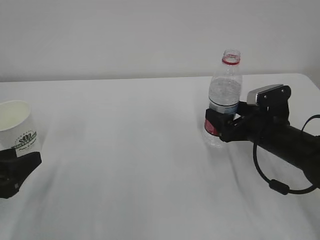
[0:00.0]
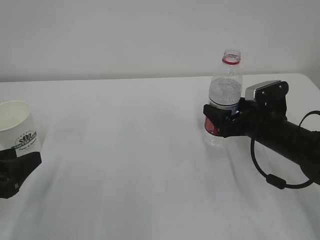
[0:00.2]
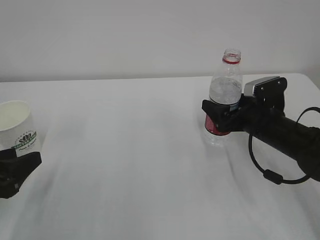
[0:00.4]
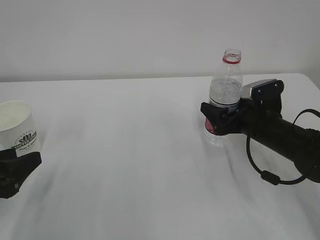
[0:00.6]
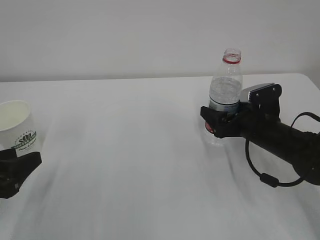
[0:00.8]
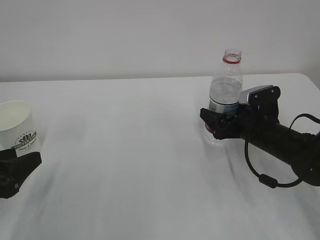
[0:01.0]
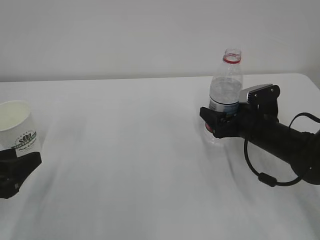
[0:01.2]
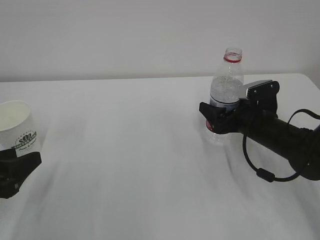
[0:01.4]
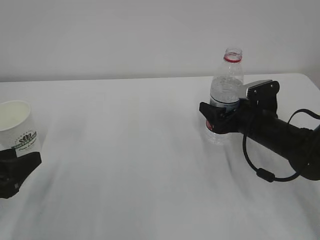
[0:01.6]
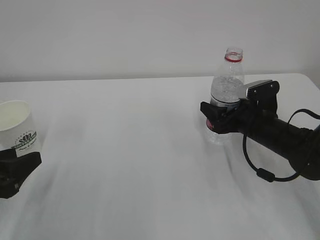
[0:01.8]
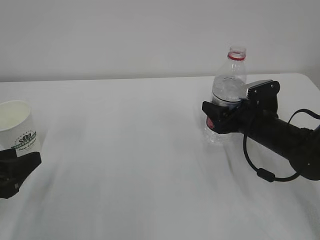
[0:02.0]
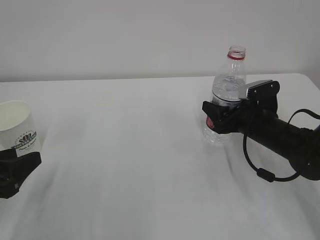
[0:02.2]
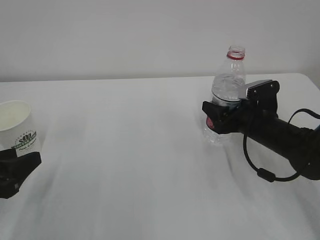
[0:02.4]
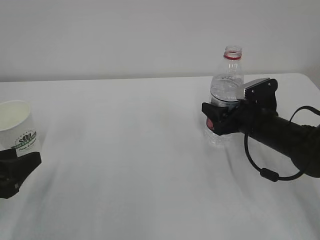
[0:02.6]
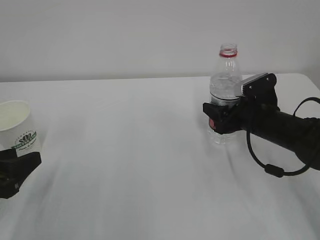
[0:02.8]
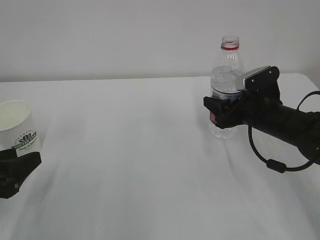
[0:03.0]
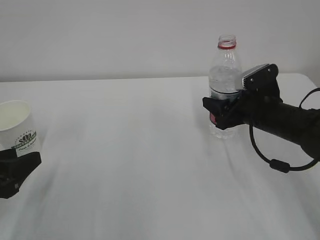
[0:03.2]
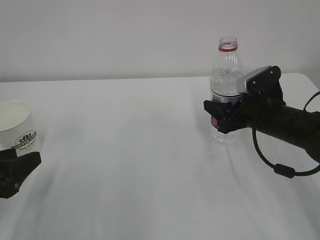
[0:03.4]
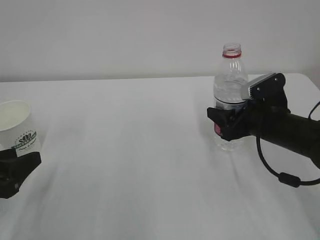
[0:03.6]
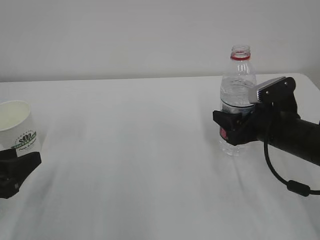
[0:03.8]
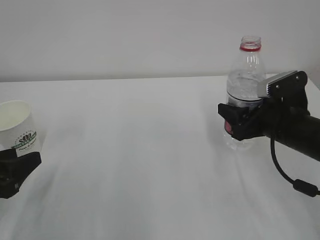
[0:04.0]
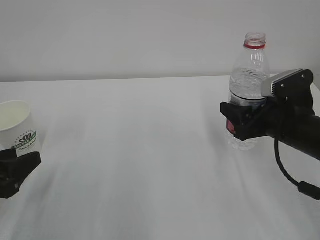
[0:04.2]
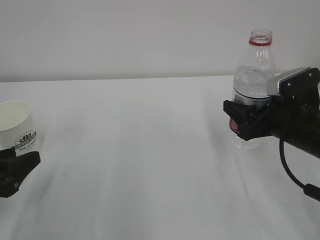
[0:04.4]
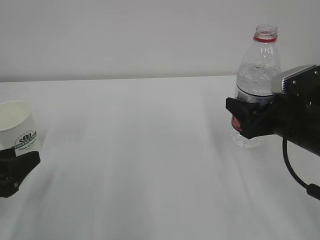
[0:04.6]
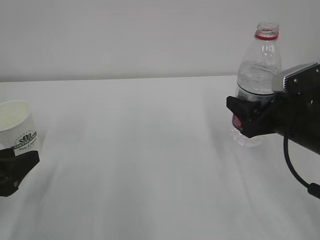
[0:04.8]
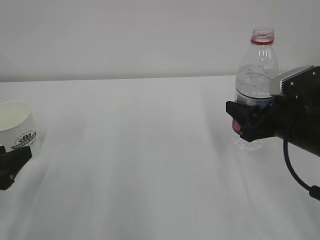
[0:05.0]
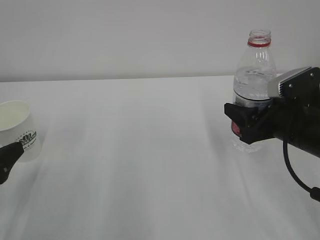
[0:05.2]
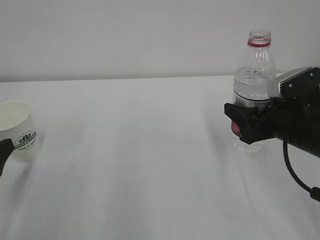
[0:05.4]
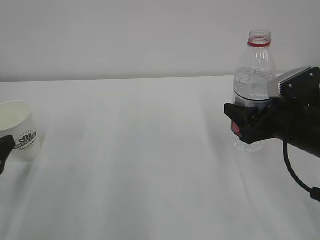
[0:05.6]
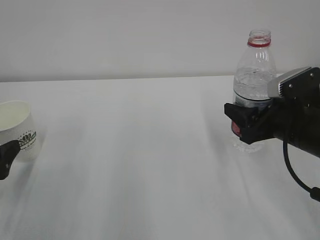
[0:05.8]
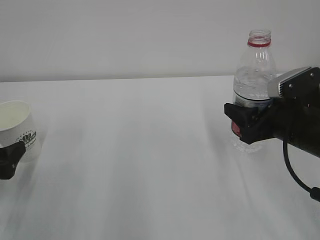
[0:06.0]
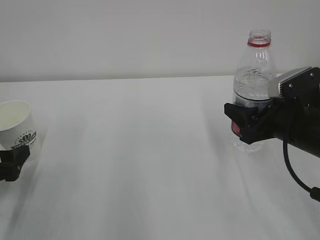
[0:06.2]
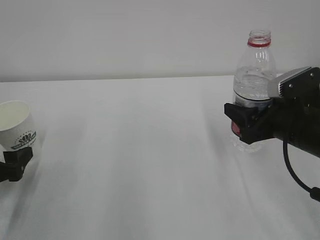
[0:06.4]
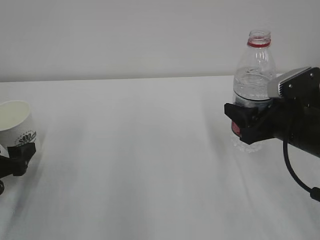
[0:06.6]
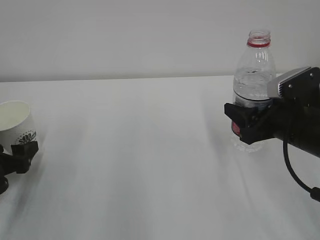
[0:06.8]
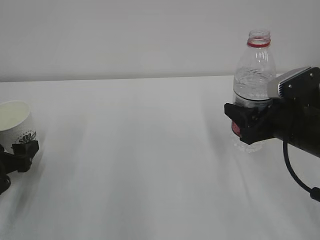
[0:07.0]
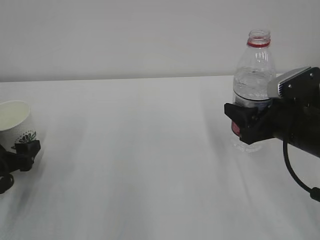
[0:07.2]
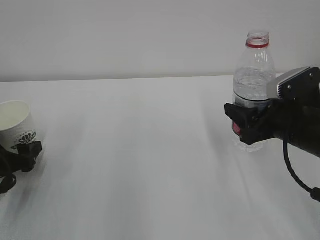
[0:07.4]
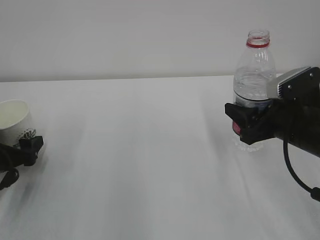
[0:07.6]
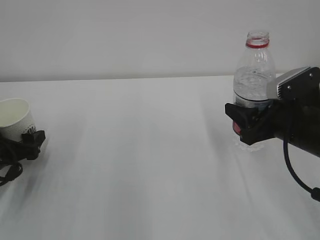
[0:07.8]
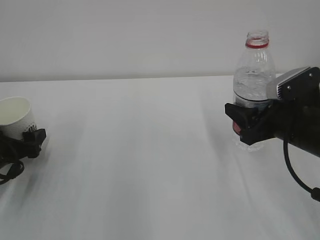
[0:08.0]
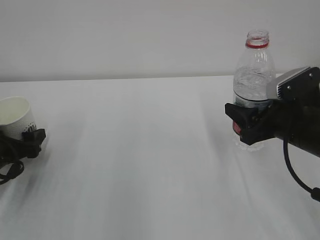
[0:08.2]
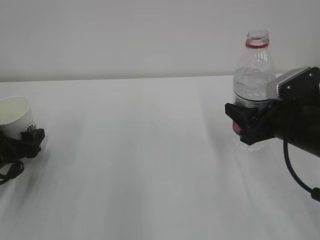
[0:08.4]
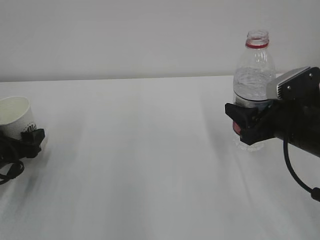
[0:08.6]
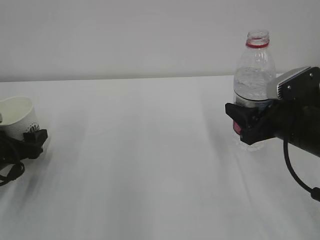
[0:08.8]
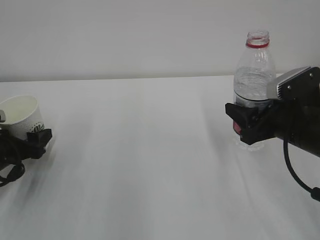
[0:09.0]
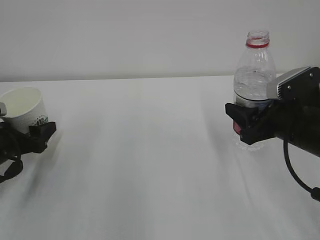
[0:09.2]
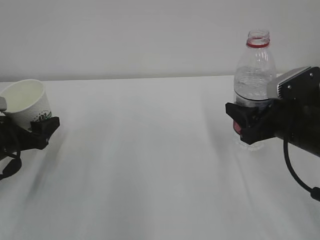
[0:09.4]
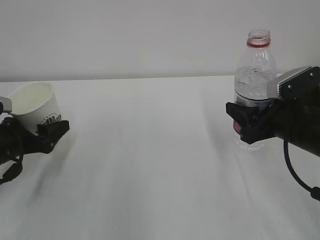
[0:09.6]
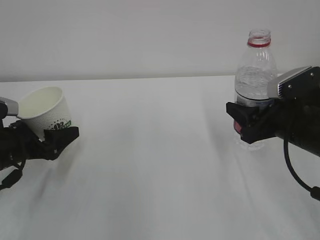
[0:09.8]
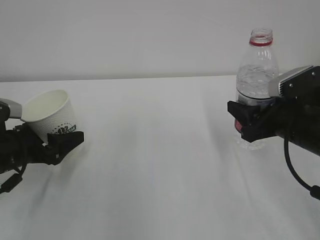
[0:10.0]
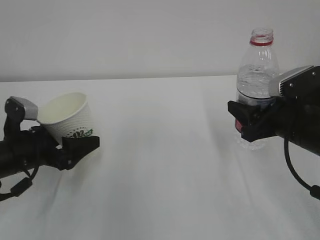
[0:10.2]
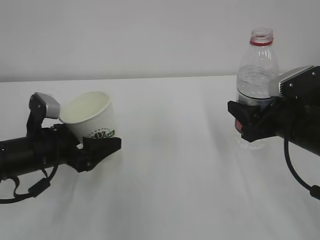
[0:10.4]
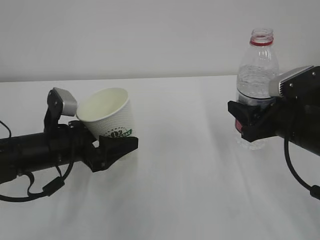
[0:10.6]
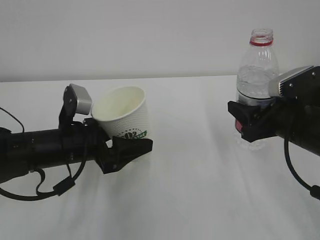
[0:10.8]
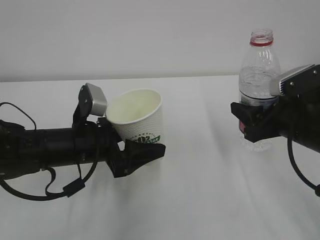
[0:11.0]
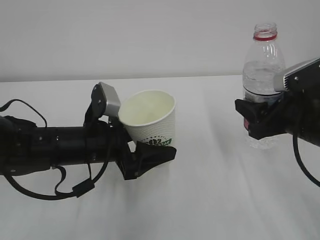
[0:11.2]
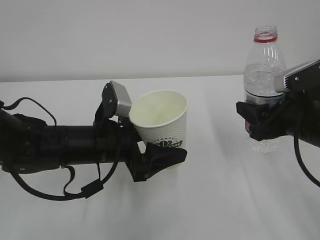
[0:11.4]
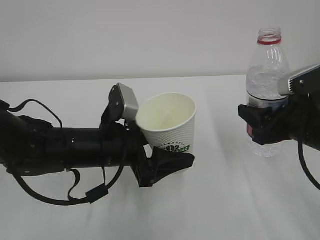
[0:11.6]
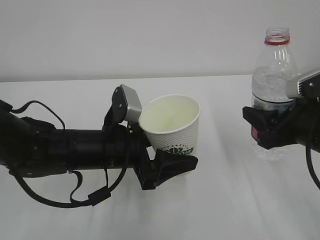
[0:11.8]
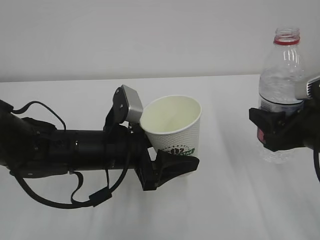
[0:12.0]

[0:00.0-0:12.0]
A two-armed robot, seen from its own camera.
0:00.0 to 0:01.6: The grippers stay close to where they were, moving slightly.
0:01.6 to 0:03.0: The right gripper closes.
0:03.0 to 0:04.4: The right gripper heads backward, covering about 5 cm.
0:04.4 to 0:06.0: The left gripper opens its fingers.
0:06.0 to 0:07.6: The left gripper goes about 5 cm forward.
0:07.6 to 0:09.0: The grippers make only small movements.
0:09.0 to 0:10.4: The left gripper heads to the right, covering about 10 cm.
0:10.4 to 0:12.0: The left gripper is displaced to the right by roughly 10 cm; the right gripper shifts by some 5 cm.

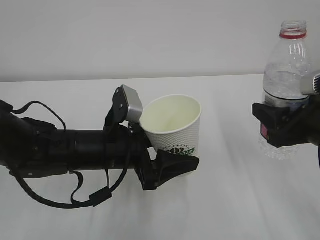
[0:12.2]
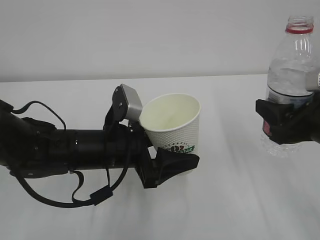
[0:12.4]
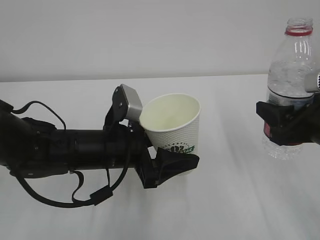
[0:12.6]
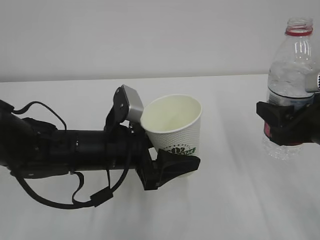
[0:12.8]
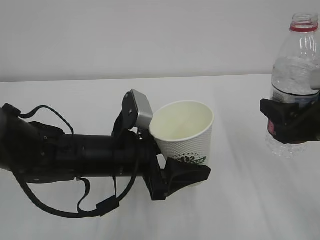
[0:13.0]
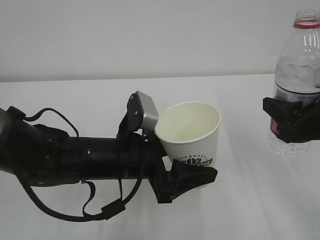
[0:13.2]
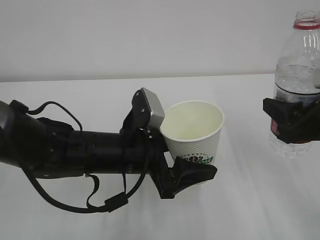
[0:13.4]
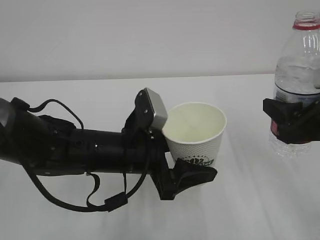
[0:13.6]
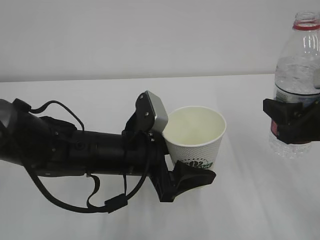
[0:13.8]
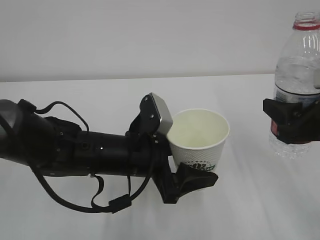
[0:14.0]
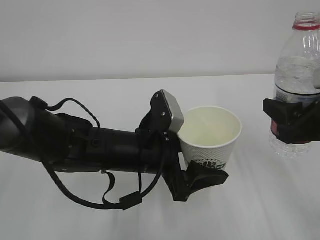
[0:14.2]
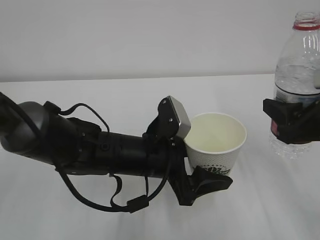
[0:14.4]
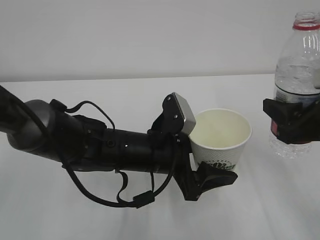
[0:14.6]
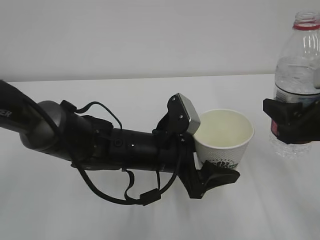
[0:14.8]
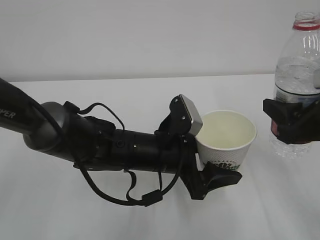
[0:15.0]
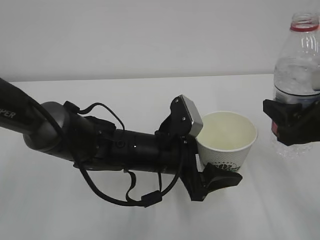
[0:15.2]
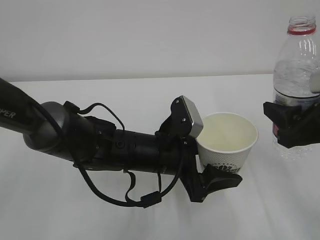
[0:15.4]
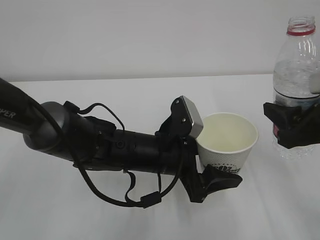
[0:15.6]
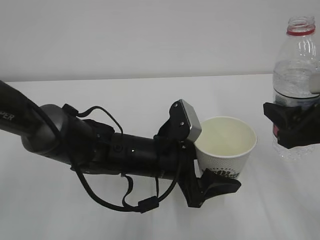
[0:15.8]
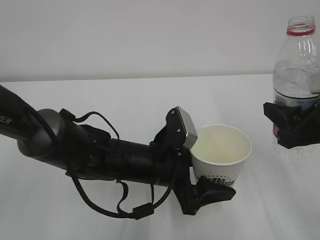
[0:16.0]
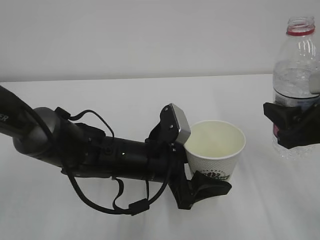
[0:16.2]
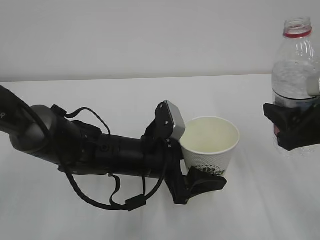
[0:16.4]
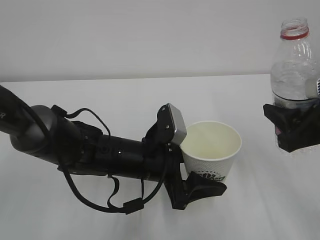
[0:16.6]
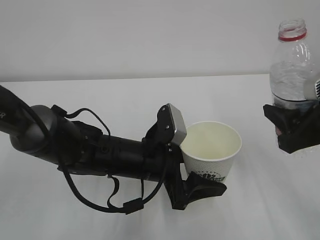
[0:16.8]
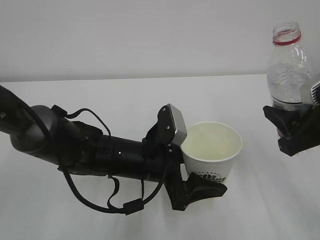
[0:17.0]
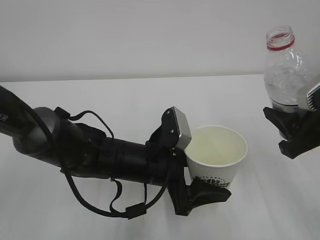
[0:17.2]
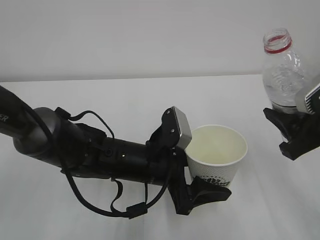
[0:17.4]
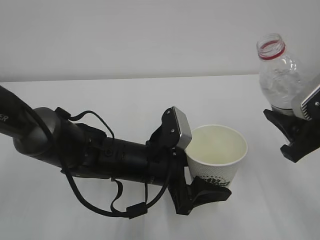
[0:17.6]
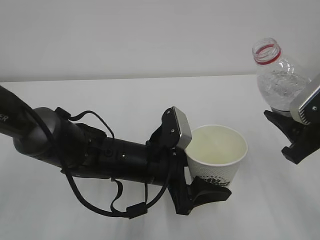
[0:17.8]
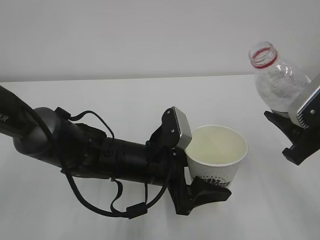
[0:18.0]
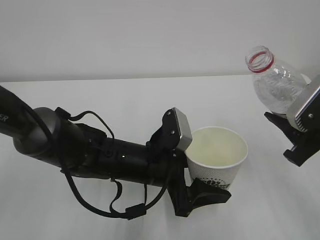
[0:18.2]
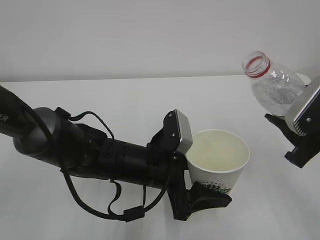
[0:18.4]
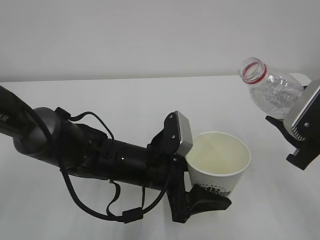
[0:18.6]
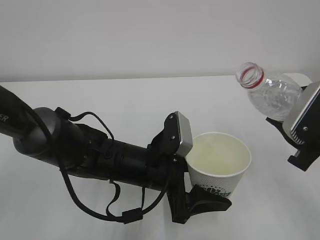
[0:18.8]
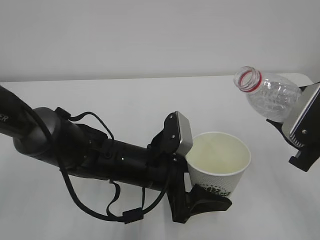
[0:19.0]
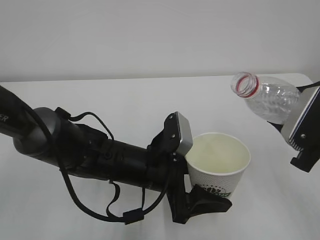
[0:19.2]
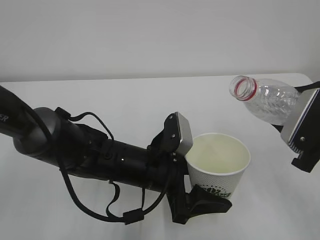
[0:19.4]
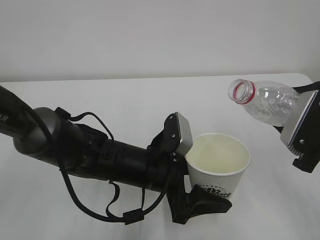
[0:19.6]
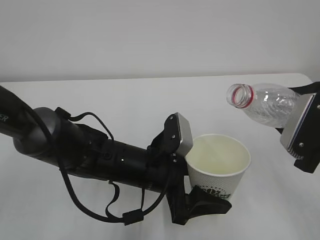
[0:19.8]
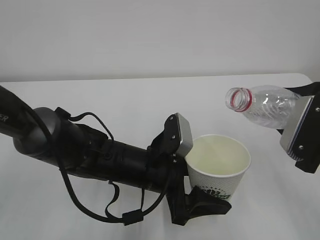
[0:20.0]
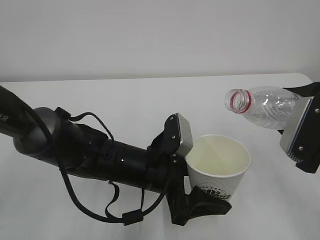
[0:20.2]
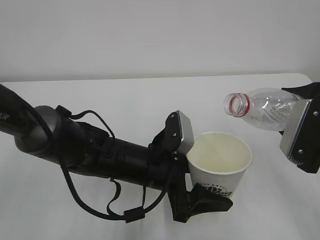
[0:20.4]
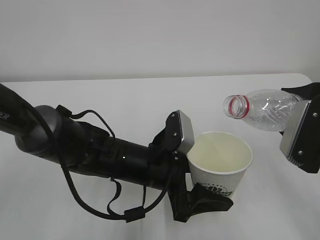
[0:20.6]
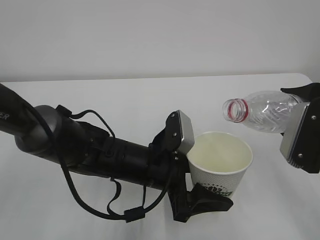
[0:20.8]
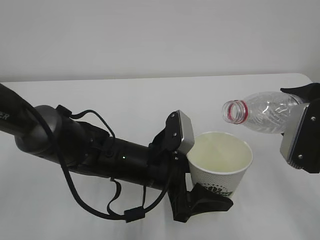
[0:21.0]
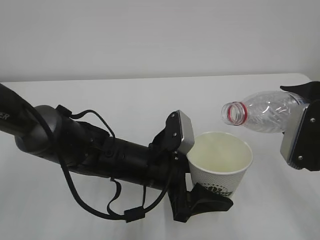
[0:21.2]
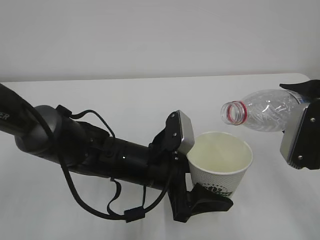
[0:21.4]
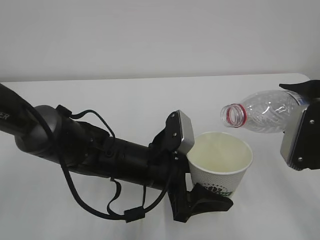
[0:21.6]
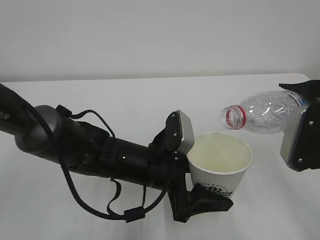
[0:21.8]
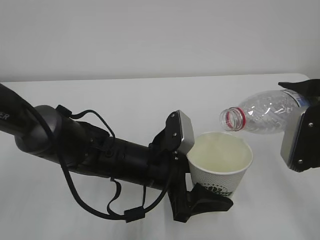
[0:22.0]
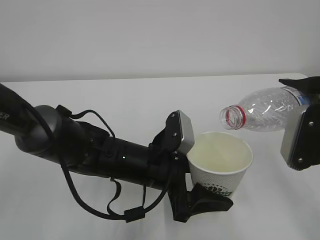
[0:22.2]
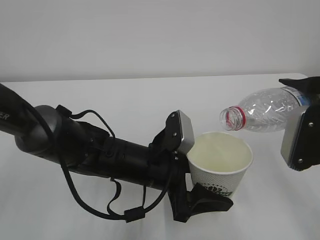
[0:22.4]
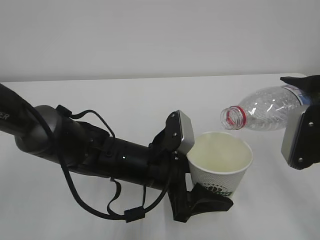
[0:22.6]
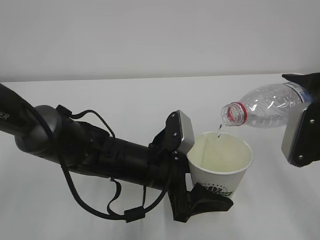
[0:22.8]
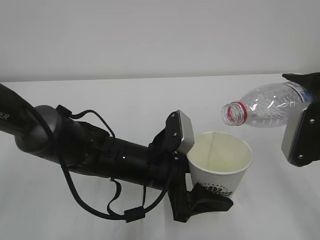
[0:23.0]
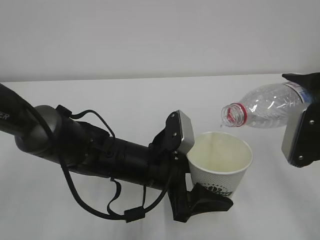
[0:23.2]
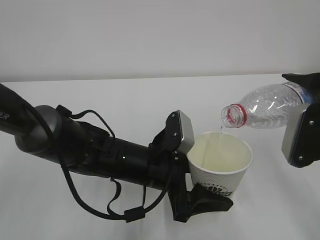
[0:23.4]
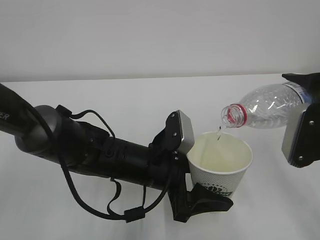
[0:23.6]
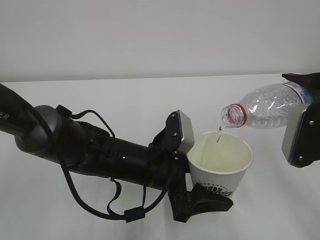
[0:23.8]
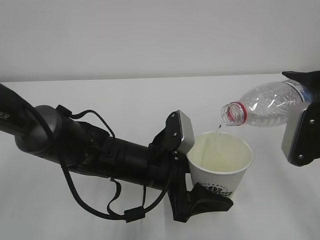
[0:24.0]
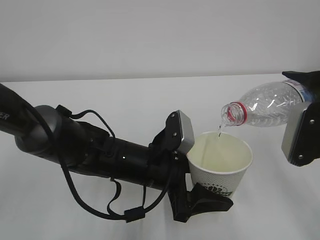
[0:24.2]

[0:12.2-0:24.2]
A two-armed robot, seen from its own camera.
0:12.2 to 0:13.8: There are only small adjustments of the grippers.
0:13.8 to 0:15.2: The left gripper ends up about 5 cm from where it was.
0:15.2 to 0:16.6: The grippers make only small movements.
0:19.8 to 0:21.2: The grippers move only a little.
0:21.2 to 0:22.6: The grippers make only small movements.
0:22.6 to 0:24.2: Both grippers stay put.
